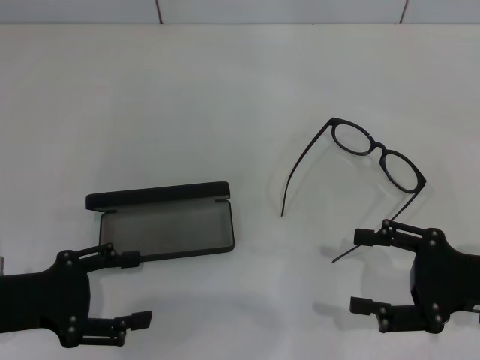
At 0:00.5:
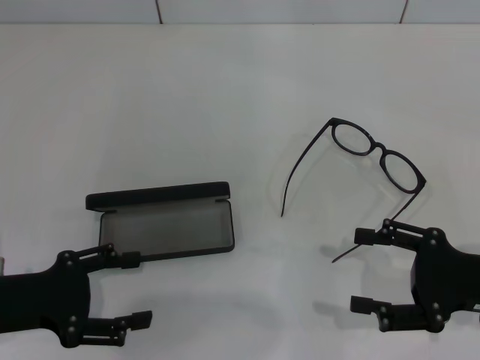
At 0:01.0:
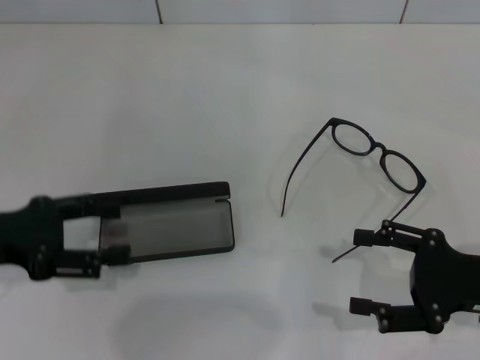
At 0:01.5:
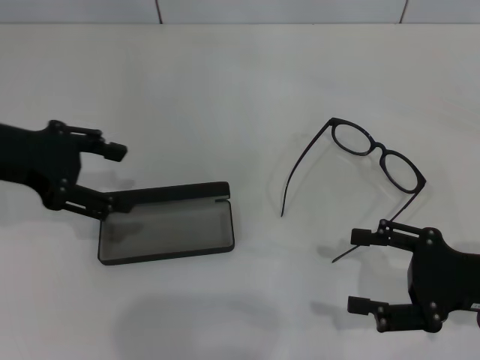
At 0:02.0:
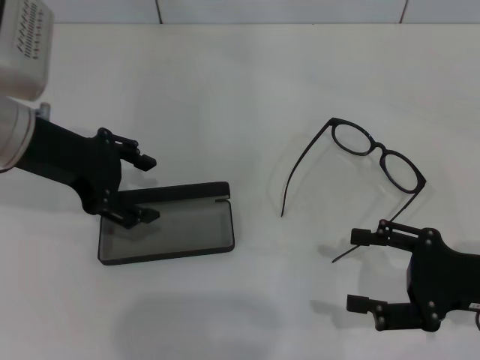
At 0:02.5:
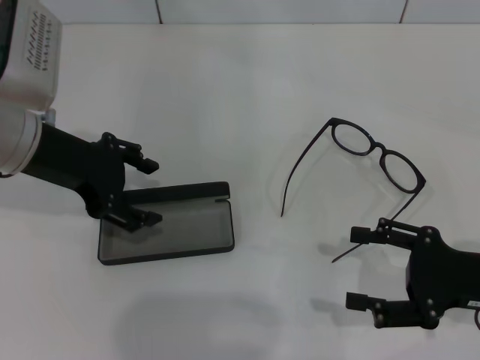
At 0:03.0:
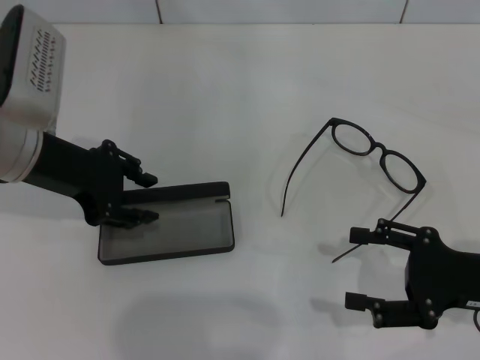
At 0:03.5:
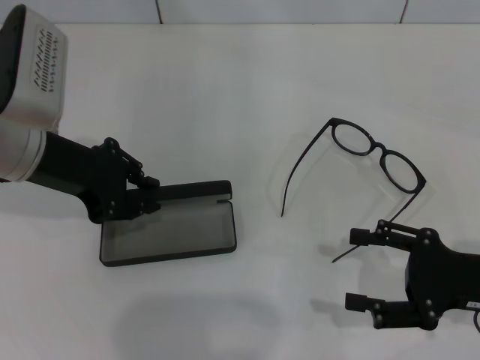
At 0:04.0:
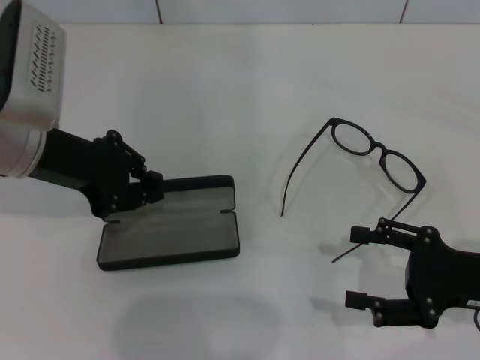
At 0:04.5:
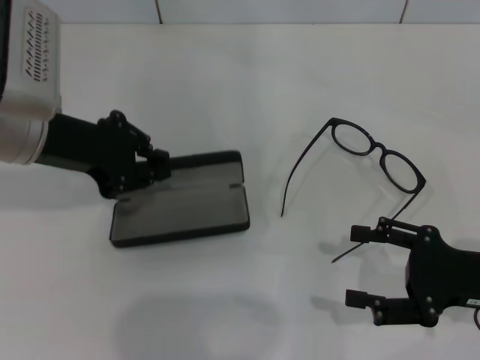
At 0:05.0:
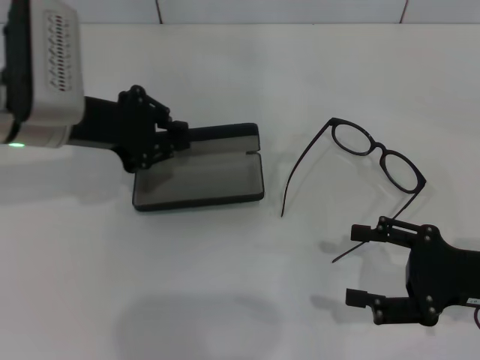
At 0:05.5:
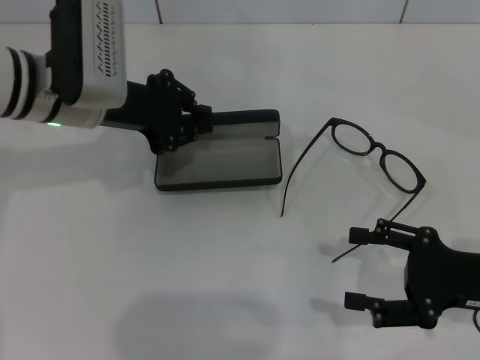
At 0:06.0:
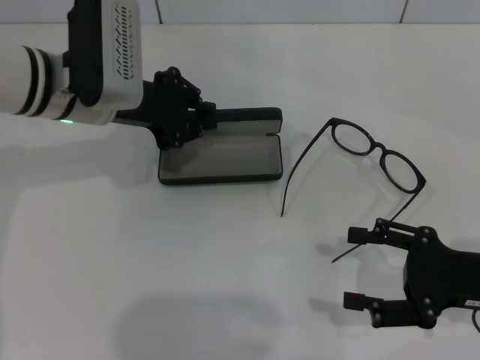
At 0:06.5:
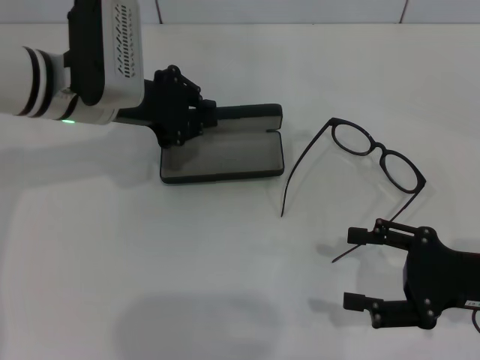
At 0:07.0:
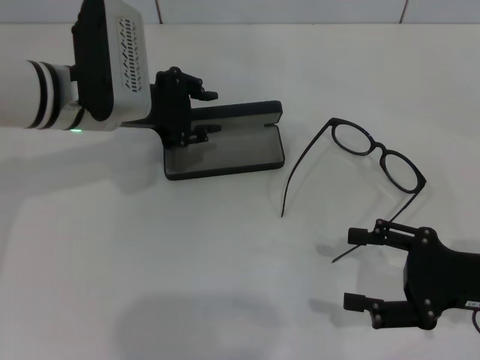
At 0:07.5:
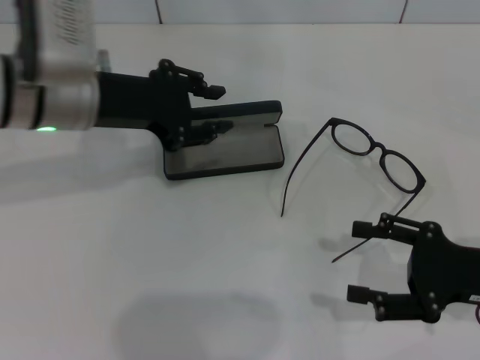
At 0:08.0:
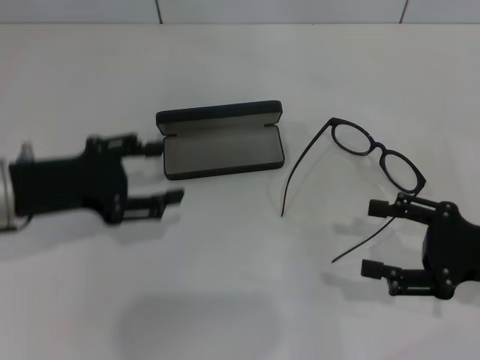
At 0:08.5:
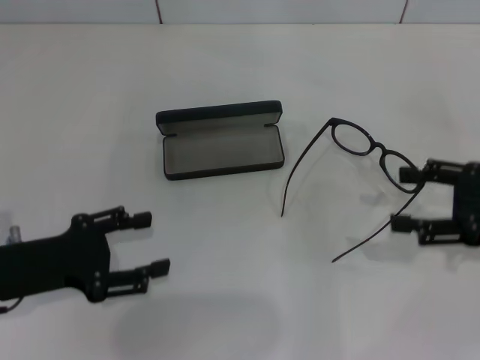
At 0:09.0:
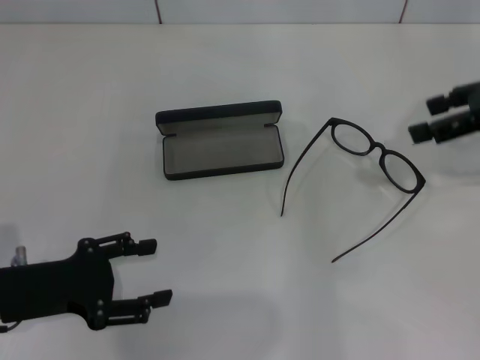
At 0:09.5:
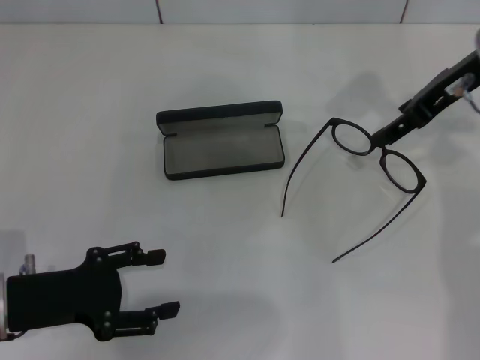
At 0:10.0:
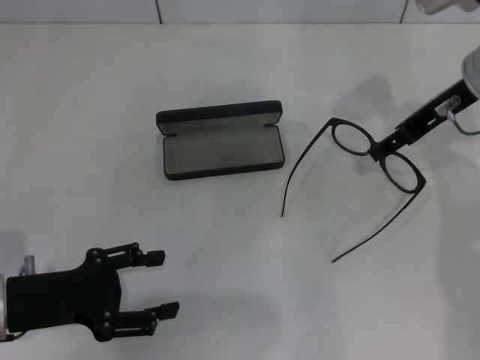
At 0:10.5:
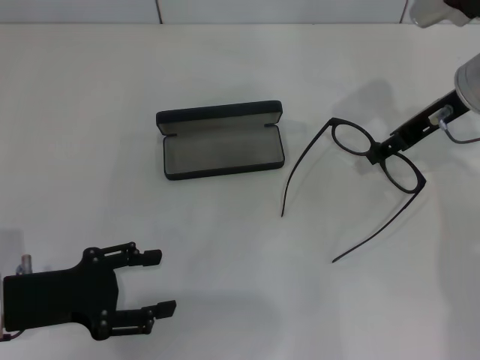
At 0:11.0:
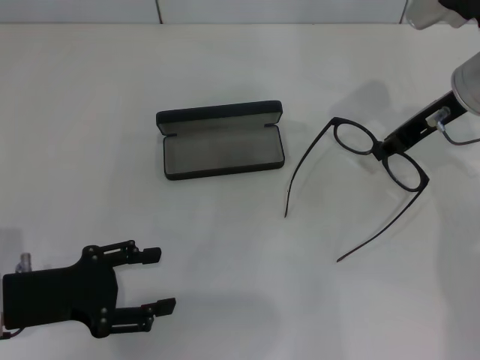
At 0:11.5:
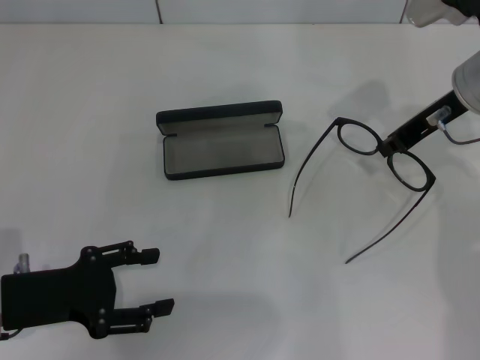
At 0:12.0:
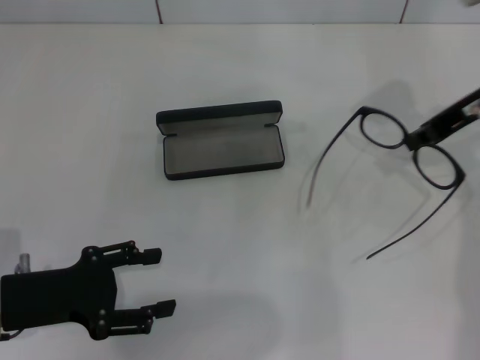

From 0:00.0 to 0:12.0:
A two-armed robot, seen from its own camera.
Step, from 0:00.0 to 0:03.5: Grab the glasses case with your left hand.
Step, from 0:04.0 to 0:06.5: Place the glasses case in the center of the table with your left hand.
Step, from 0:07.0 to 0:11.0: Grab the eyeglass frame with your right hand.
From 0:00.0 to 0:02.0: The left gripper shifts about 20 cm forward, upward and to the right.
From 0:02.0 to 0:04.0: The left gripper closes up.
From 0:04.0 to 0:06.0: The left gripper goes about 5 cm forward.
From 0:06.0 to 0:08.0: The left gripper heads backward and to the left, covering roughly 15 cm, and opens.
From 0:08.0 to 0:10.0: The left gripper travels backward and downward by some 10 cm. Meanwhile the right gripper travels forward, upward and to the left by some 20 cm.
From 0:10.0 to 0:12.0: The right gripper closes its fingers.

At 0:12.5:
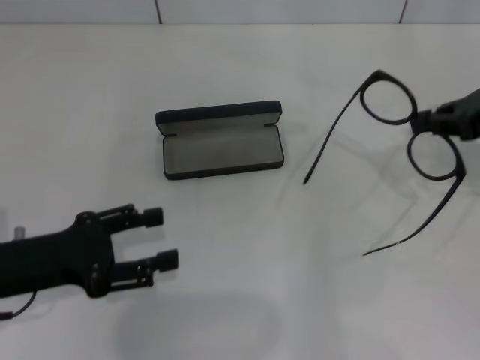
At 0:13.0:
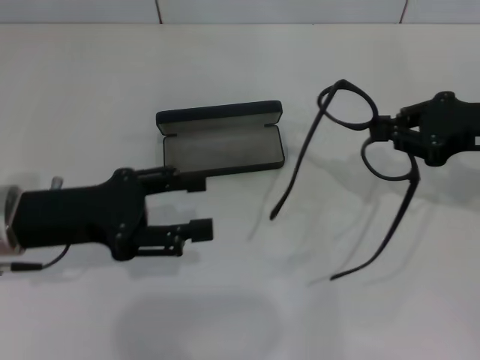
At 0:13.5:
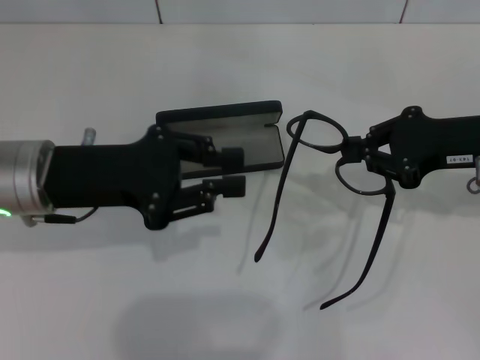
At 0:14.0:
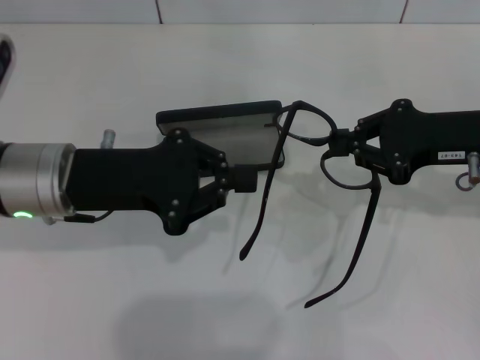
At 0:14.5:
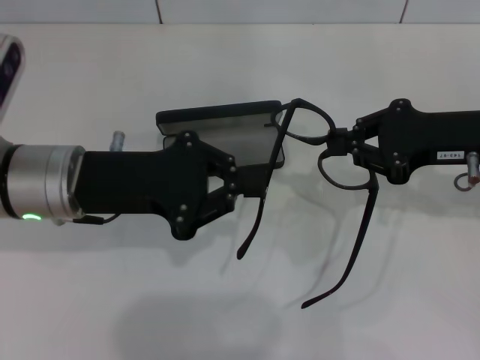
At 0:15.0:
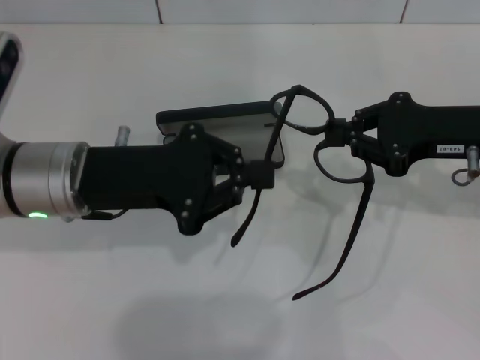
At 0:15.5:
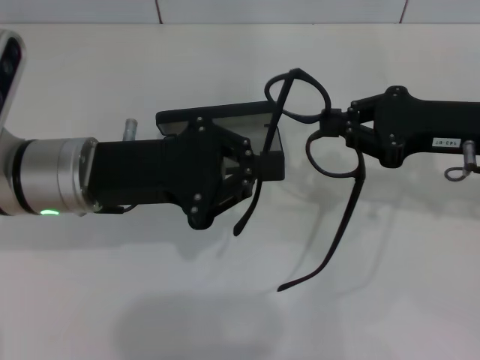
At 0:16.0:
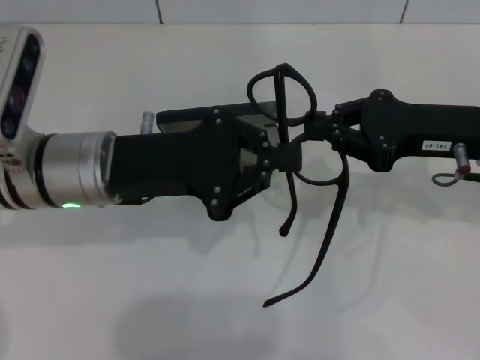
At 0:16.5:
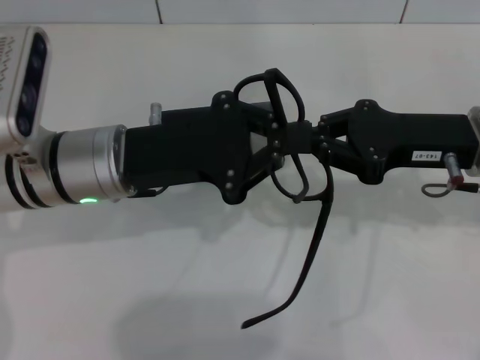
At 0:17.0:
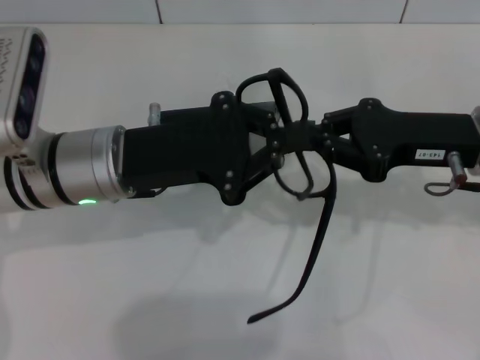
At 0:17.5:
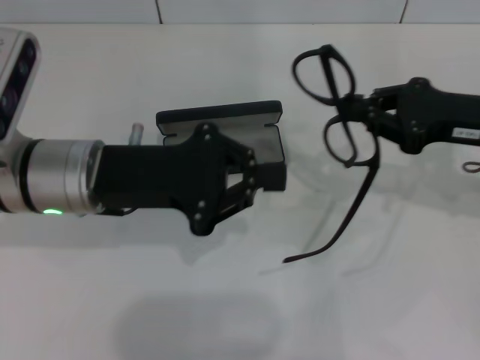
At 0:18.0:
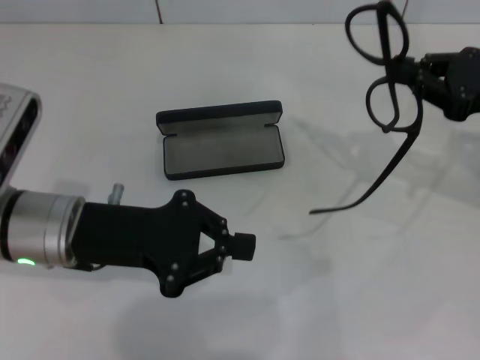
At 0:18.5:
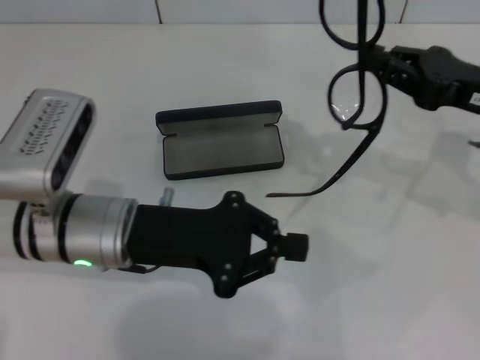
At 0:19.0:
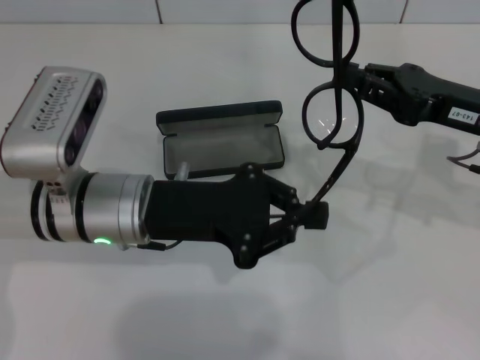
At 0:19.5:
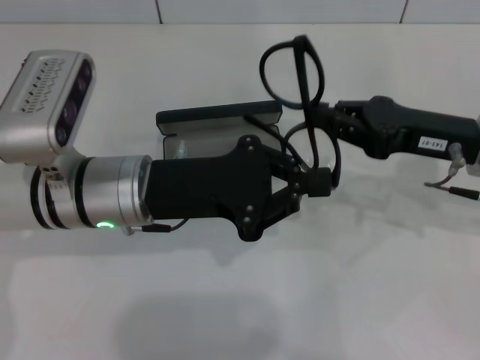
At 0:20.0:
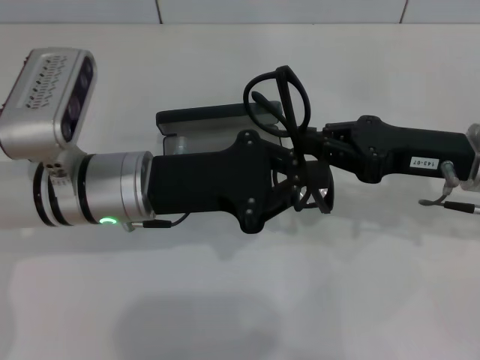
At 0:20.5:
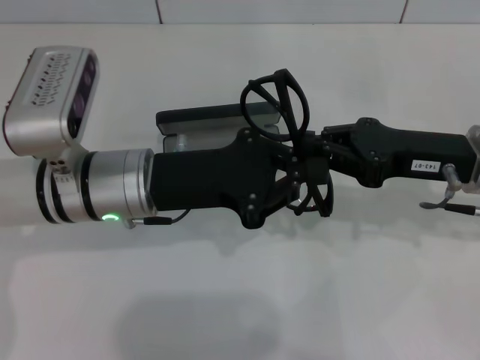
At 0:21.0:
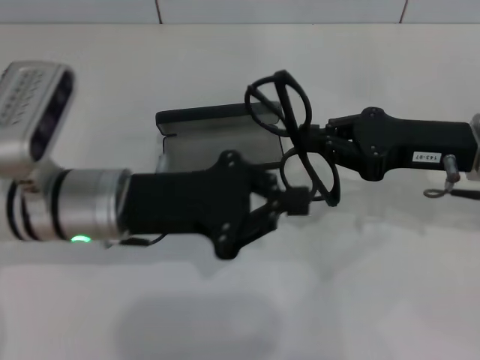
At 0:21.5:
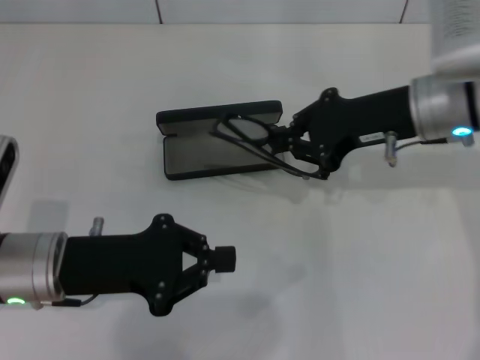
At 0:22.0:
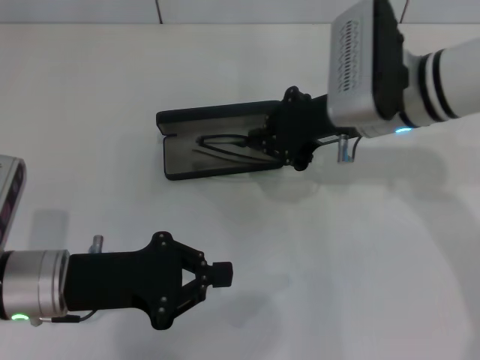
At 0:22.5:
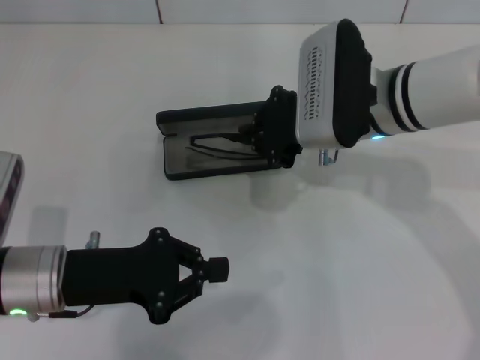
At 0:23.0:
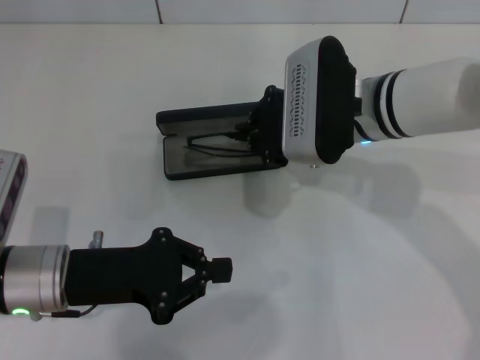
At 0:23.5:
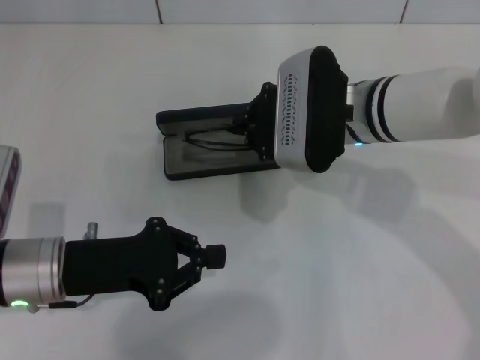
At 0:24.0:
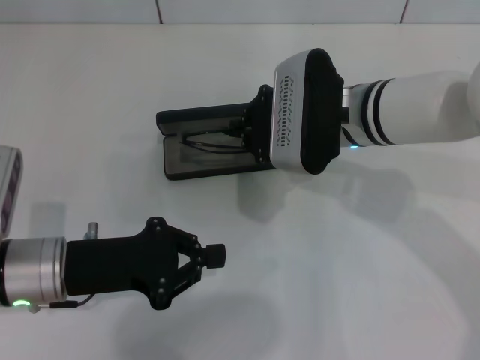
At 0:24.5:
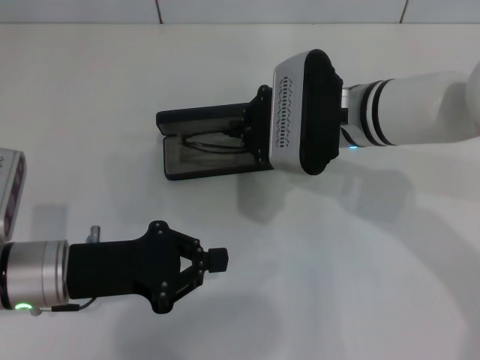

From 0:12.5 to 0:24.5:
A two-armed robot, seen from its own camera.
Step, from 0:12.5 to 0:20.0: Fold the frame with your left hand.
From 0:12.5 to 0:14.5: The left gripper goes roughly 10 cm to the right and forward, and closes its fingers; the right gripper goes roughly 5 cm to the left.
From 0:18.5 to 0:20.5: The right gripper ends up some 5 cm from where it was.
From 0:20.5 to 0:22.5: The right gripper is displaced to the left and forward by roughly 15 cm. Meanwhile the left gripper goes some 10 cm to the left and backward.
From 0:22.5 to 0:24.5: The grippers move only a little.

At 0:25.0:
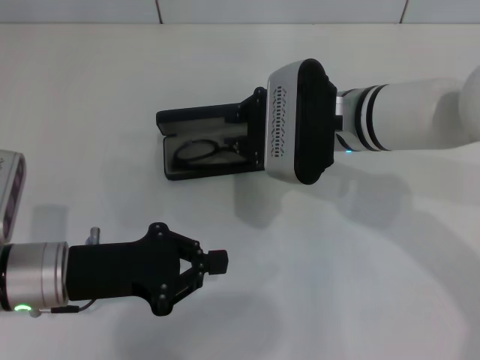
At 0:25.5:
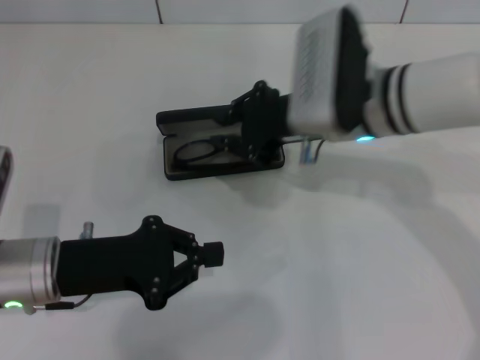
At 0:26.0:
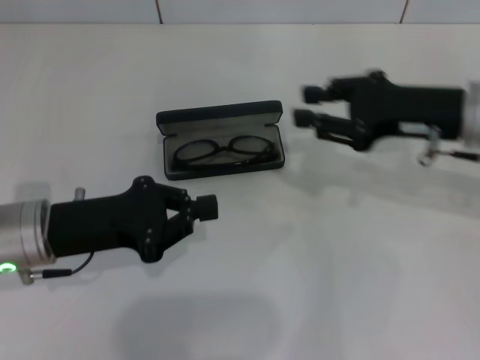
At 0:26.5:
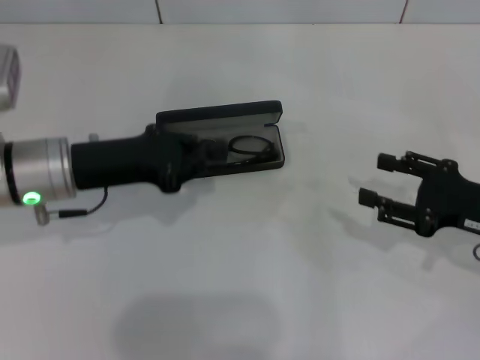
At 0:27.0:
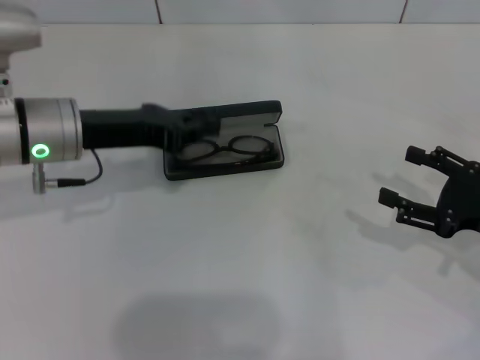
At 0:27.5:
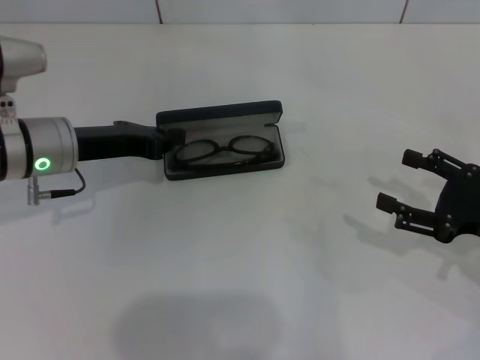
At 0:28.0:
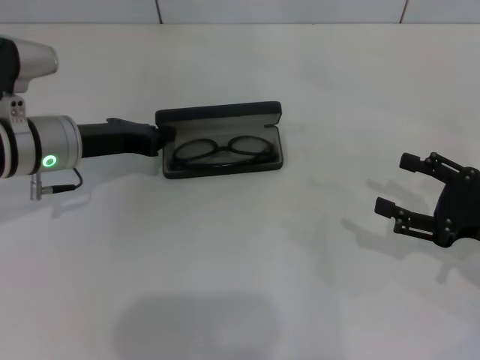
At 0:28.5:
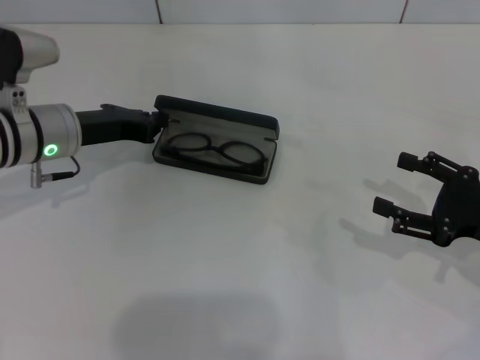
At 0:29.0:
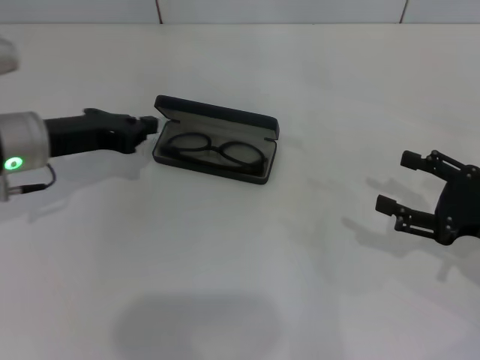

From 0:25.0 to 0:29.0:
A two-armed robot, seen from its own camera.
From 0:25.0 to 0:27.0: The right gripper travels to the right and backward by roughly 25 cm, and opens up; the left gripper shifts some 10 cm forward and upward.
